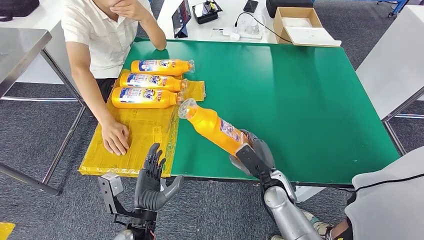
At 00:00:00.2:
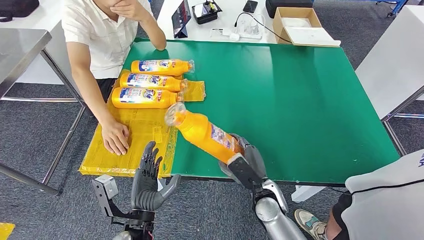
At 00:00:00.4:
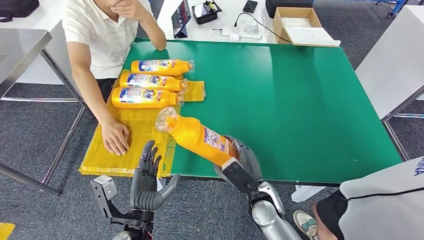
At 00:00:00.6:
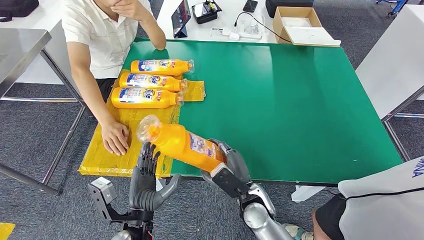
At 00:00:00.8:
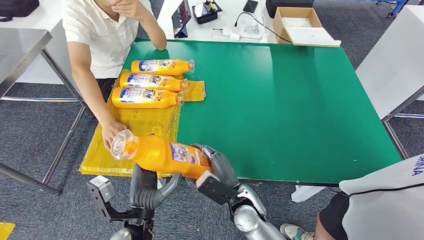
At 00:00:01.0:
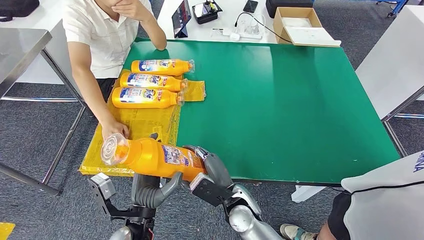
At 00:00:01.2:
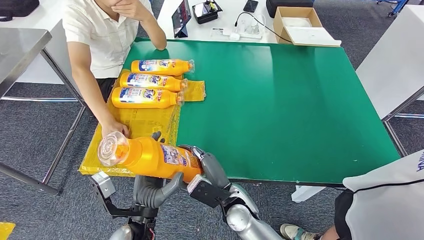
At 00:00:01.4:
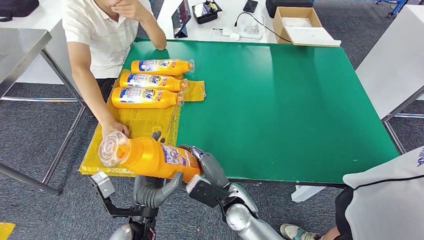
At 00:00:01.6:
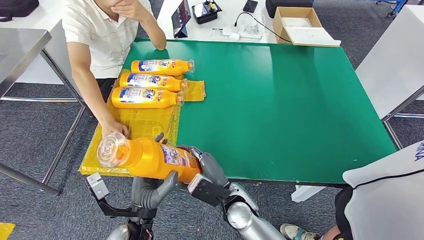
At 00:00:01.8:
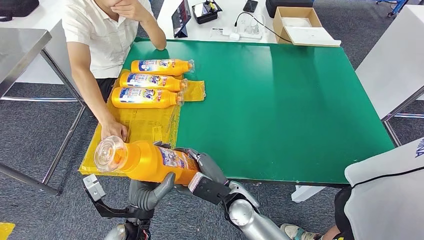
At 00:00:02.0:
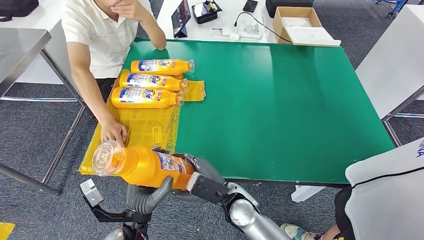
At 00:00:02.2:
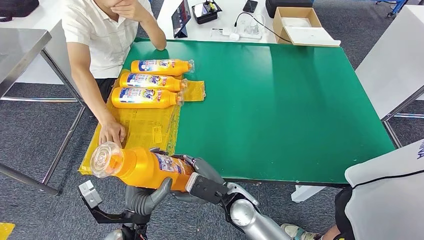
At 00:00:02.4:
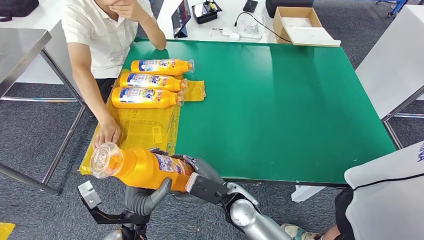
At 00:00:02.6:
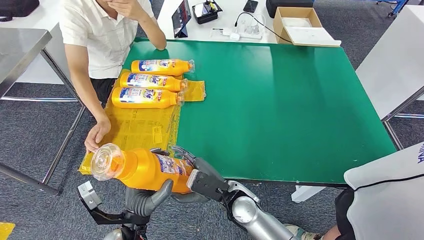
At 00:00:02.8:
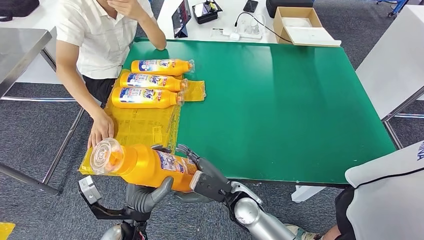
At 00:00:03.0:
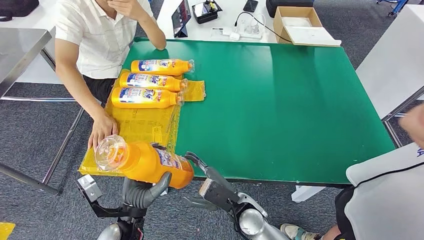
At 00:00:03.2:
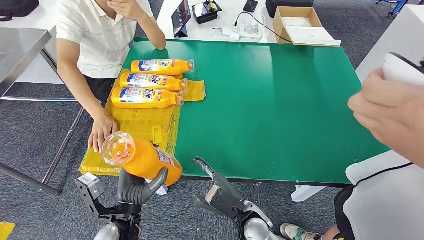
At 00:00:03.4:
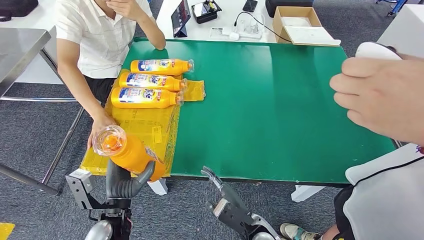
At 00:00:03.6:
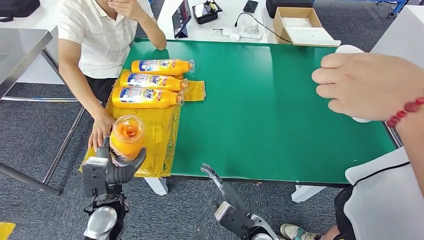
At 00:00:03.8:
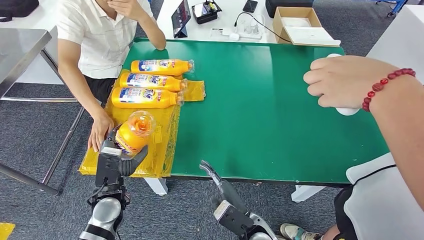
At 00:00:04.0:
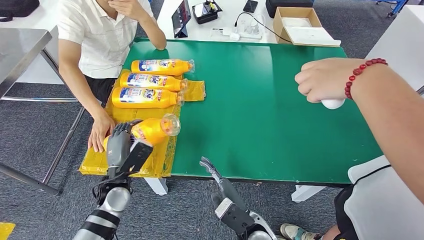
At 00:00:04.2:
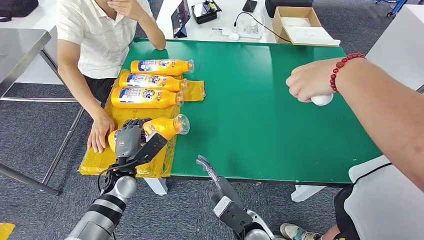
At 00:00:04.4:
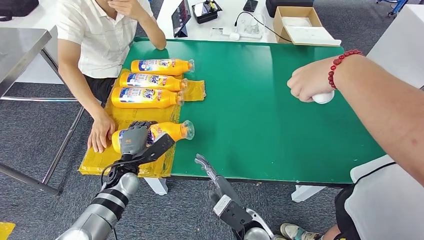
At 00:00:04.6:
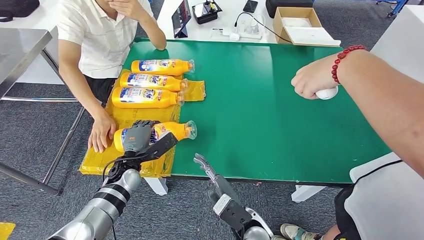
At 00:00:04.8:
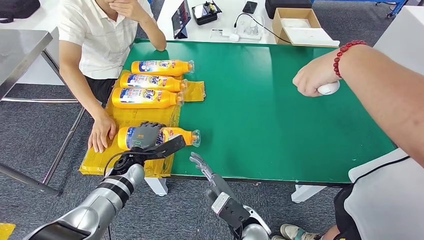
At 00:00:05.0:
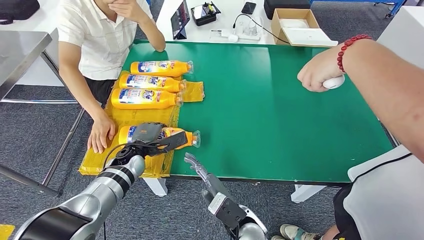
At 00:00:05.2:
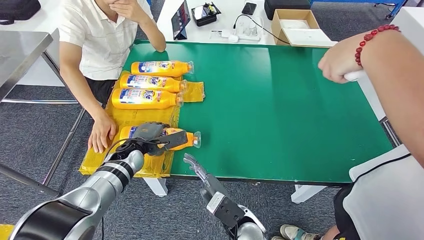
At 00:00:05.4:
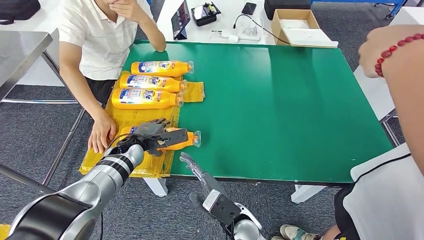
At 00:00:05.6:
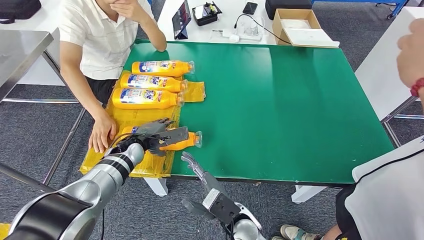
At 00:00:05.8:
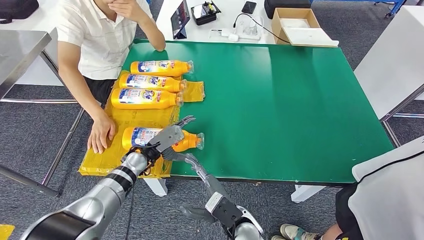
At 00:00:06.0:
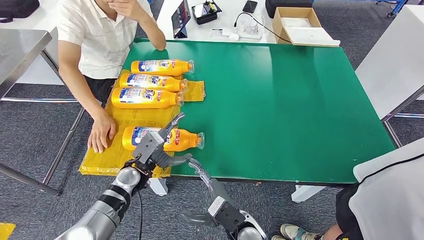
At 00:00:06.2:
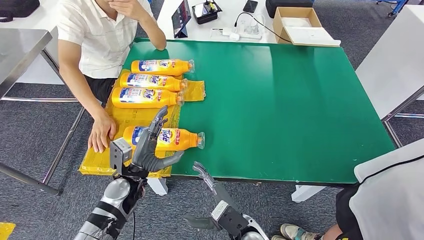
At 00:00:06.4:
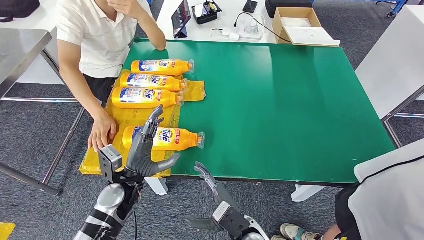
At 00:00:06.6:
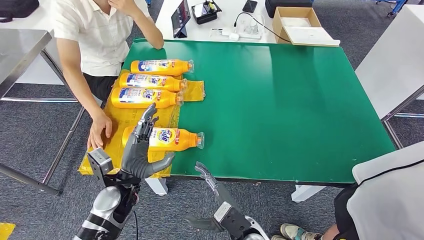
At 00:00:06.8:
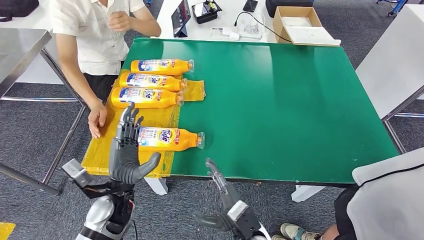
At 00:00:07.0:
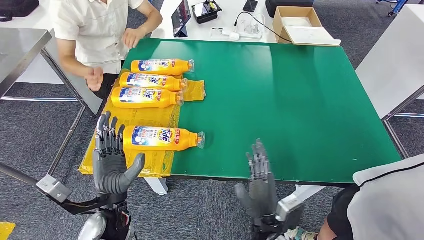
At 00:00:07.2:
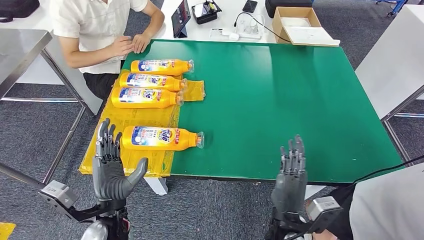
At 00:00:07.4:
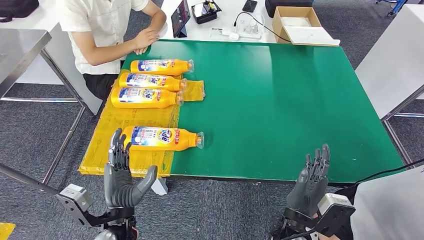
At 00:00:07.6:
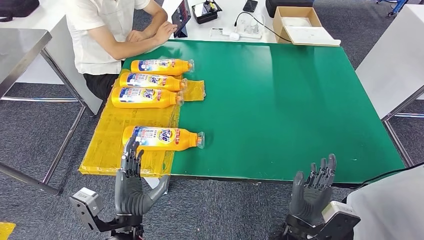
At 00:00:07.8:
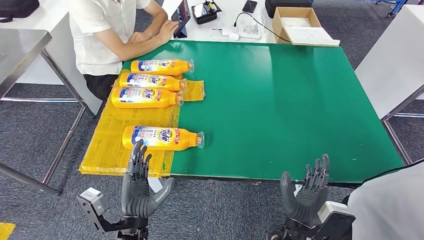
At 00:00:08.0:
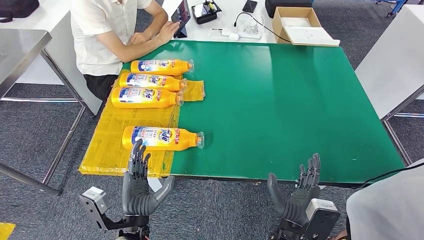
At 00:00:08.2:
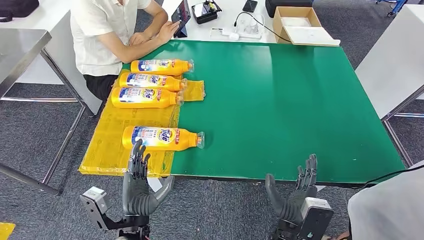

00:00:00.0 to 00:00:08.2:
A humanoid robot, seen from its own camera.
Step, 00:00:00.4 to 00:00:08.0: Flip the fast-moving consumer goods bottle to the front side.
00:00:00.0 to 00:00:01.6: The right hand shifts approximately 15 cm to the left and backward.
00:00:01.6 to 00:00:03.2: The right hand changes place by some 5 cm.
00:00:06.6 to 00:00:08.2: The right hand shifts approximately 10 cm to the right and upward. The left hand heads backward and to the right, covering about 10 cm.
